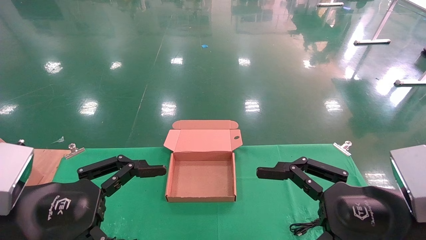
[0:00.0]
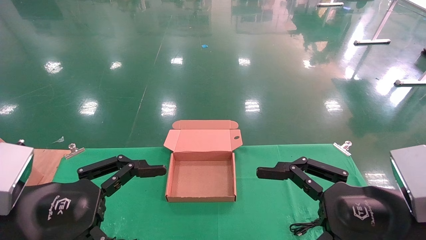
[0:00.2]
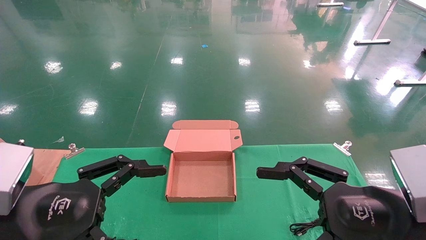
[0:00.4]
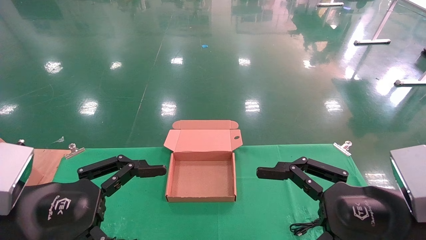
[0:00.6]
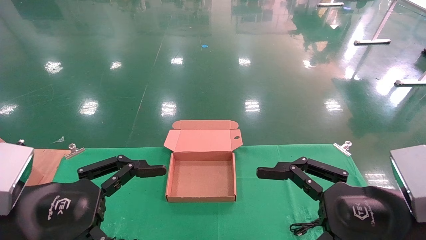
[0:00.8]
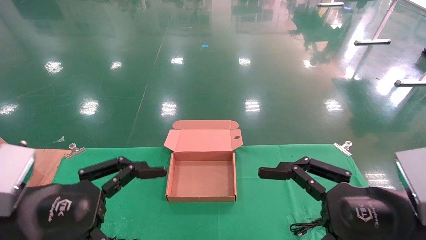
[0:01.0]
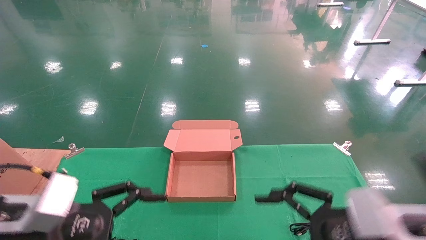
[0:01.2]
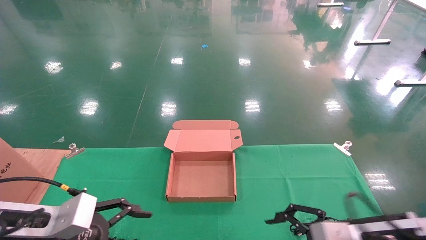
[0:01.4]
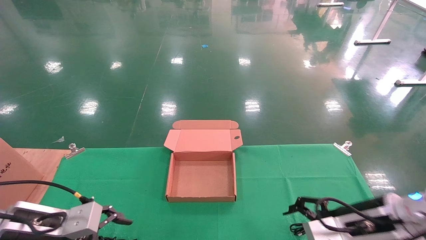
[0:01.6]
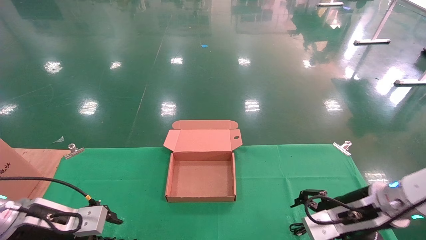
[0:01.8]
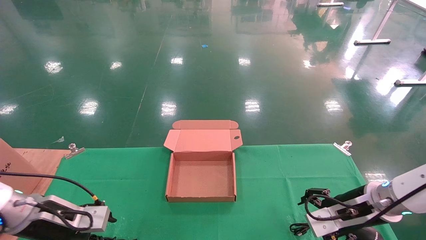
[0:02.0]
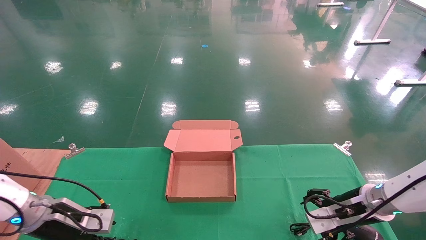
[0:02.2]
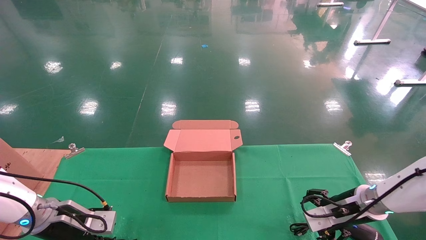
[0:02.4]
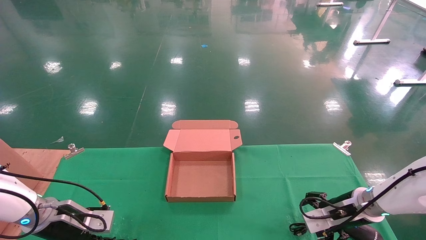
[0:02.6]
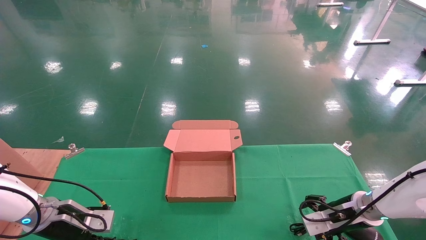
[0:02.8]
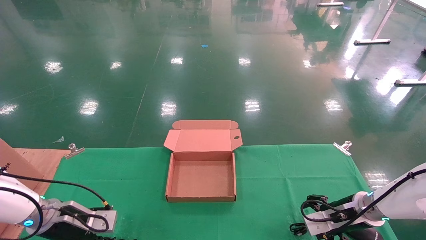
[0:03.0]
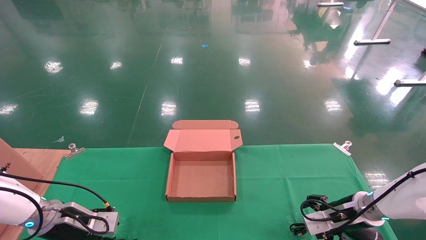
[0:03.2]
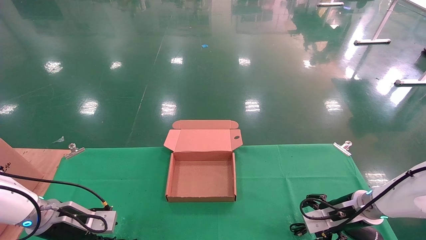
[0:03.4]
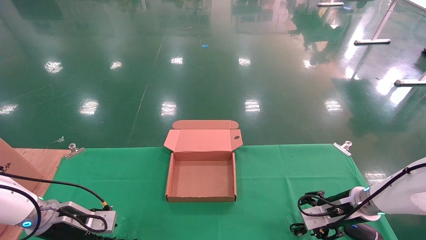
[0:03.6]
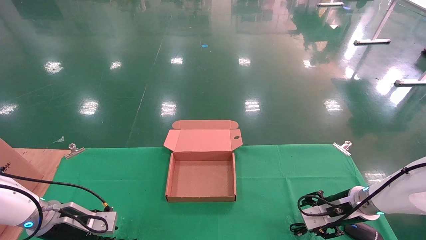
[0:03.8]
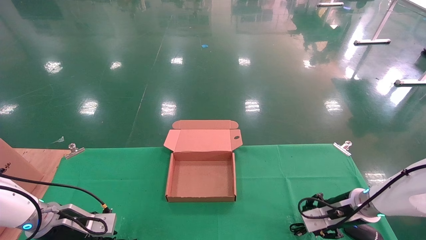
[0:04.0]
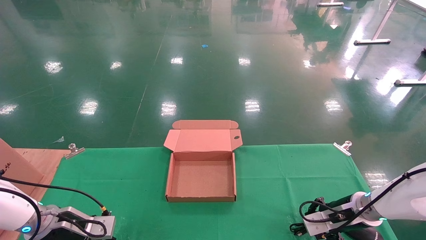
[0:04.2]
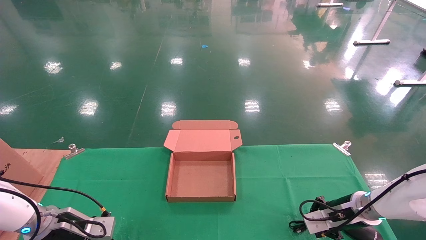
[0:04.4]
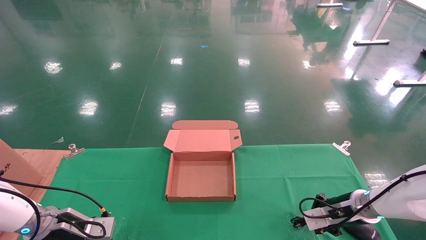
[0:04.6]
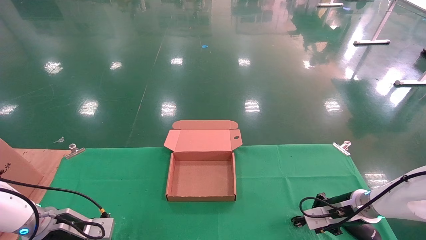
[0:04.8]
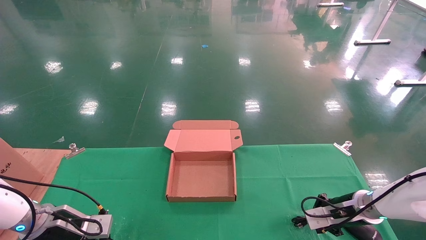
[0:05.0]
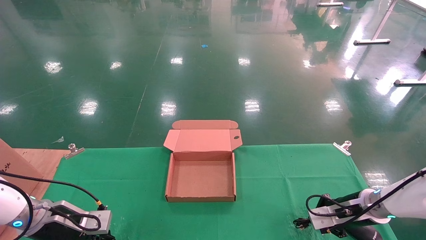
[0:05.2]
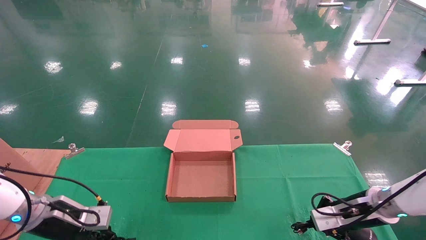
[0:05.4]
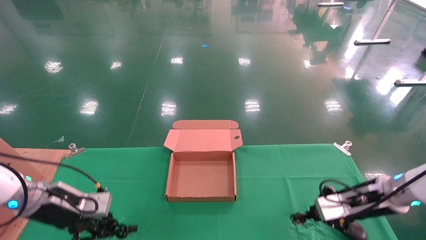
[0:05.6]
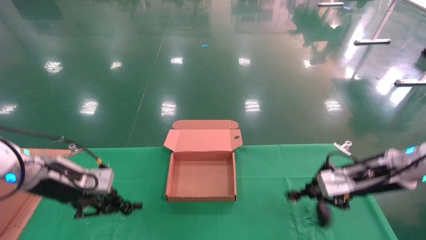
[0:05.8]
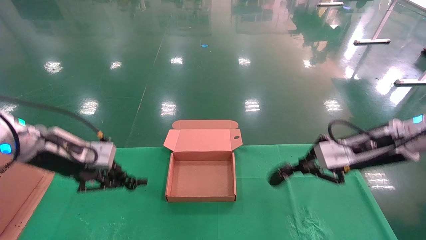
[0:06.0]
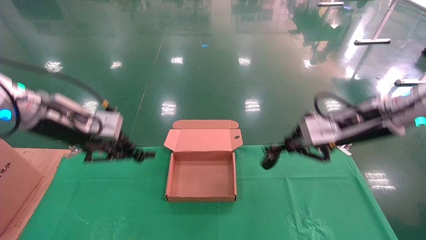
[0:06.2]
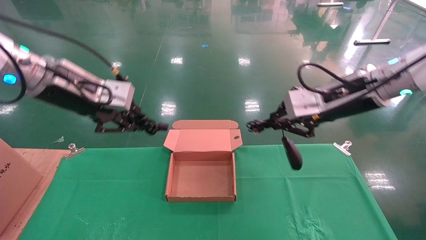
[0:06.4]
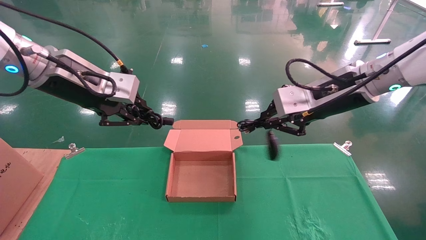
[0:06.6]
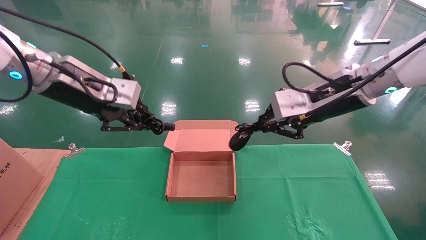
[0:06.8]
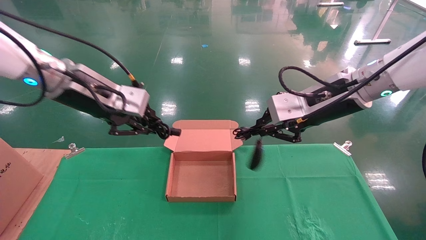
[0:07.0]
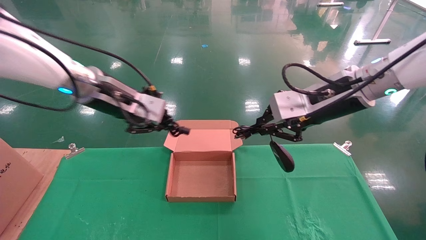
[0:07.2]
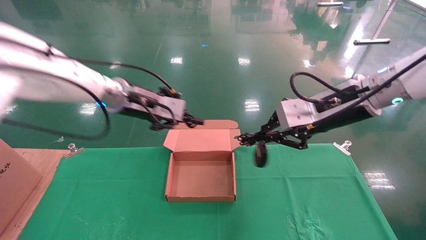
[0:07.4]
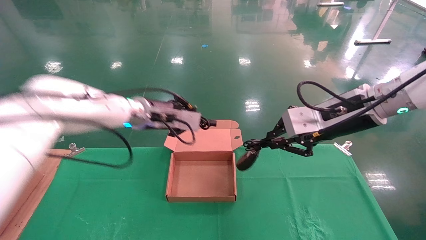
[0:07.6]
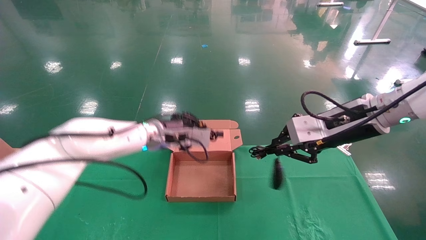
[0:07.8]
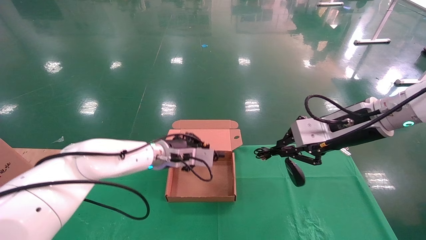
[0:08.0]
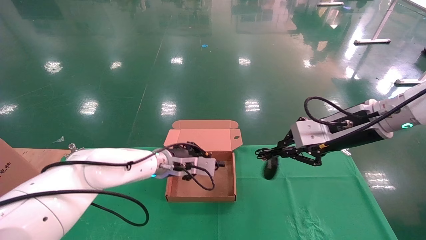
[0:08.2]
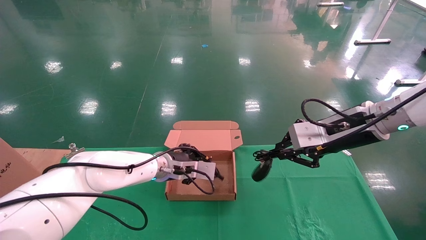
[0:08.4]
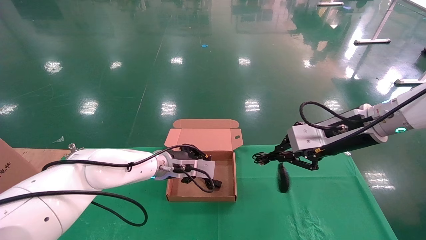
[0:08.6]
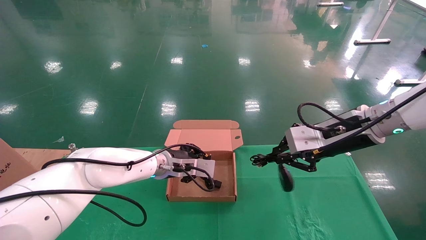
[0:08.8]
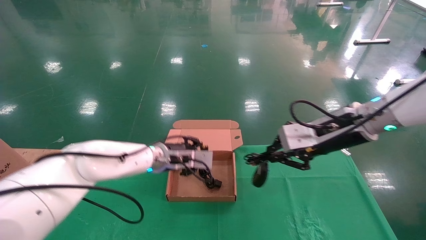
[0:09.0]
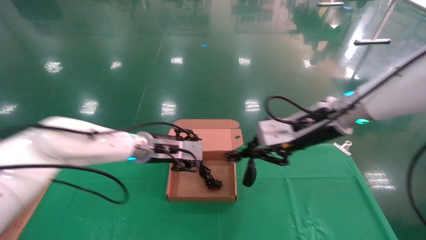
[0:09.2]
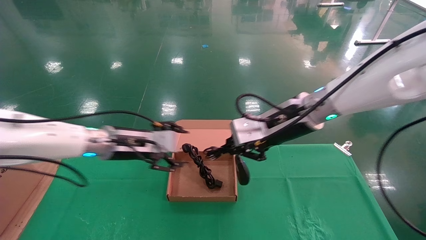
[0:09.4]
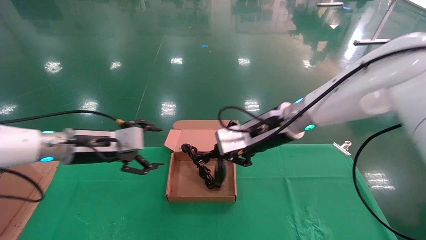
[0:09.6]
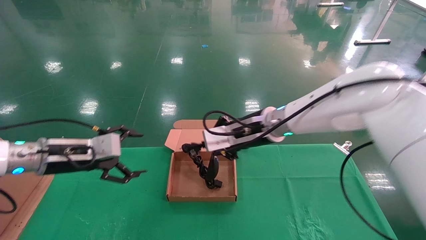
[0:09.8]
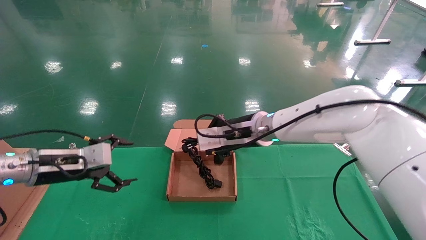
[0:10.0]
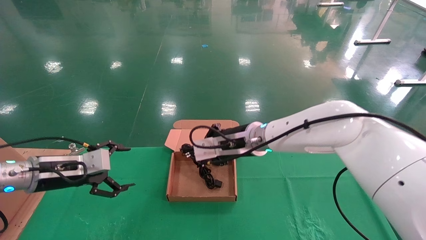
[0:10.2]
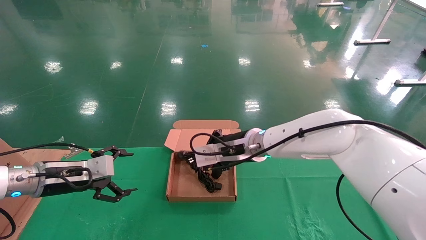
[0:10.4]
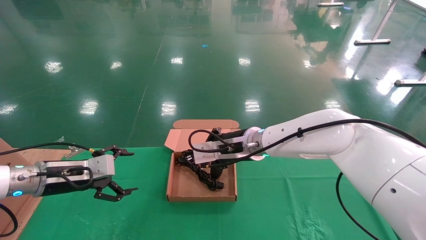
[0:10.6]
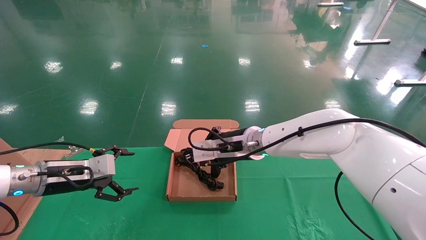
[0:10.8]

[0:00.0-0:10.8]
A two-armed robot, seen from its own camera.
Step, 0:01.6 to 0:05.6: Grab and lift both the mouse and power cord from the accessory packaging area at the same time.
0:00.0 to 0:01.6: Both grippers travel together forward and downward, about 15 cm.
0:01.6 to 0:03.0: Both grippers travel together forward and downward, some 15 cm.
0:03.0 to 0:04.6: The right gripper closes up. The left gripper closes.
0:04.6 to 0:06.2: Both grippers travel together upward, some 25 cm.
0:06.2 to 0:07.8: The left gripper heads to the right, forward and downward, covering roughly 20 cm.
0:07.8 to 0:09.2: The right gripper is displaced to the left by about 5 cm, while the left gripper opens.
0:09.2 to 0:10.8: The right gripper shifts approximately 15 cm to the left, downward and forward. Meanwhile the left gripper shifts about 20 cm to the left, and opens.

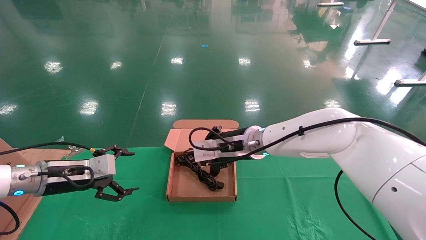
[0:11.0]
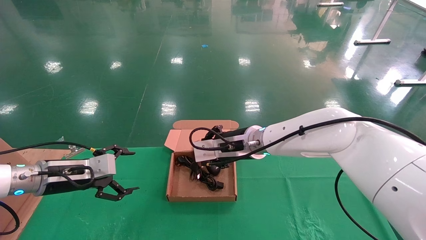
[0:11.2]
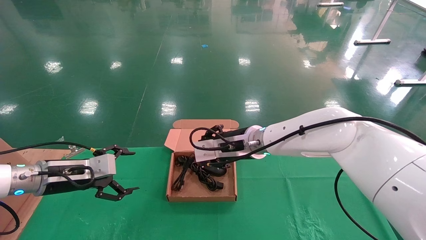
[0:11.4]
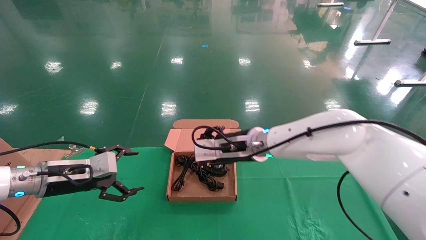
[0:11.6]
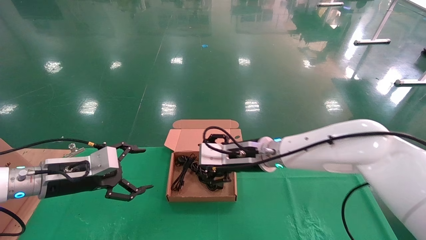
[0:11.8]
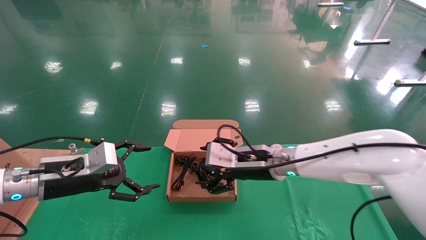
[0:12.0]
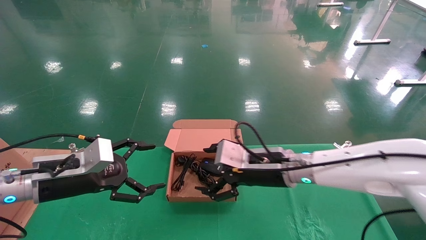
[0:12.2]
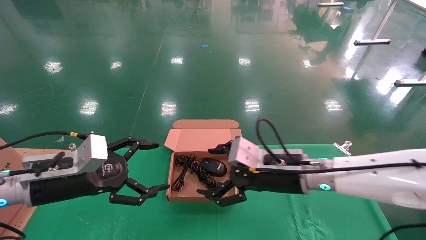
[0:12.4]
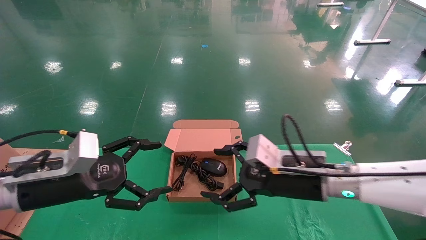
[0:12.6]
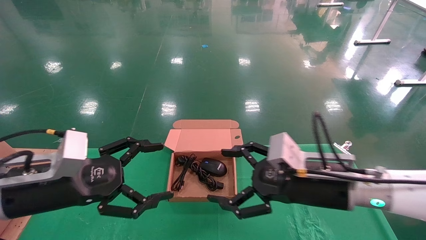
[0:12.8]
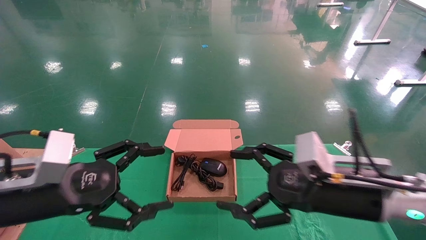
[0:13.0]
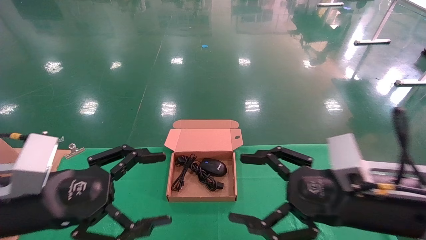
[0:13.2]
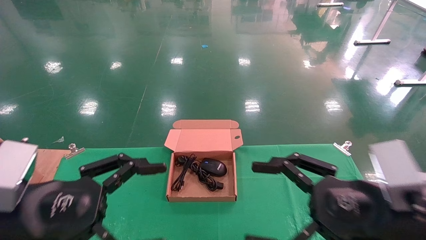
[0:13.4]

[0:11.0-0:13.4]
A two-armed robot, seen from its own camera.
0:11.0 to 0:12.2: The right gripper shifts approximately 10 cm to the right and backward, and opens its fingers; the left gripper is displaced backward by about 5 cm.
0:12.2 to 0:13.4: The left gripper moves backward, approximately 15 cm. The right gripper shifts approximately 20 cm backward and to the right.
